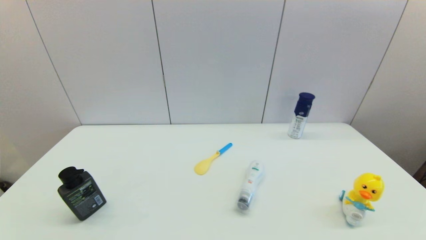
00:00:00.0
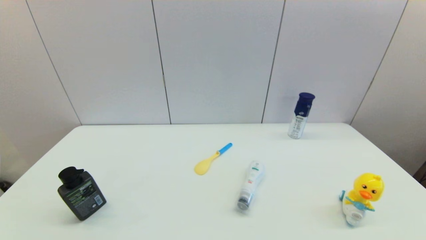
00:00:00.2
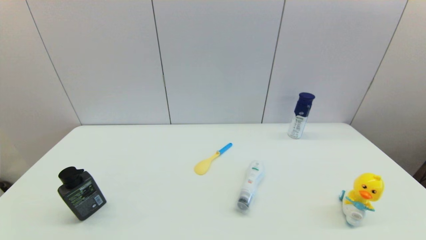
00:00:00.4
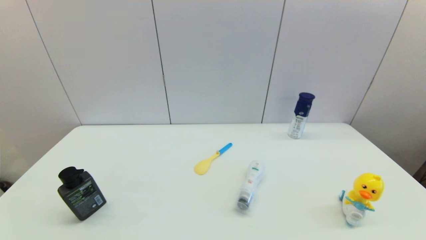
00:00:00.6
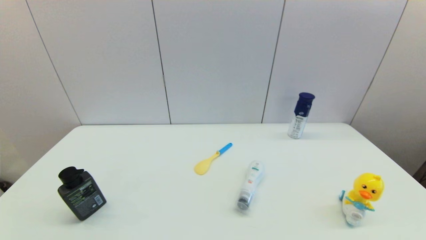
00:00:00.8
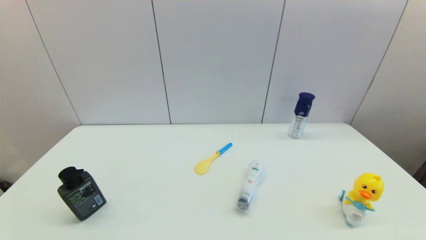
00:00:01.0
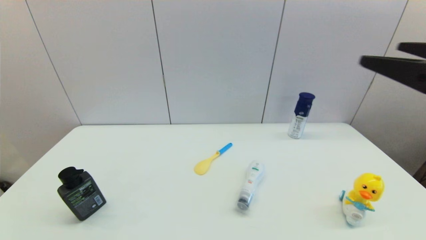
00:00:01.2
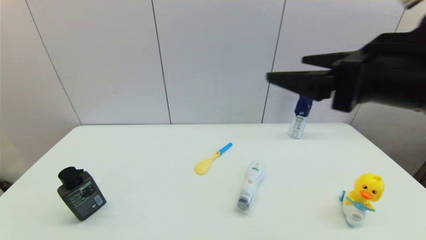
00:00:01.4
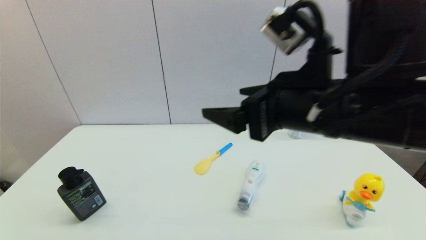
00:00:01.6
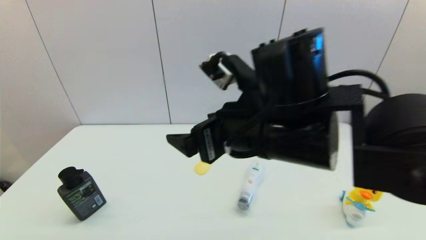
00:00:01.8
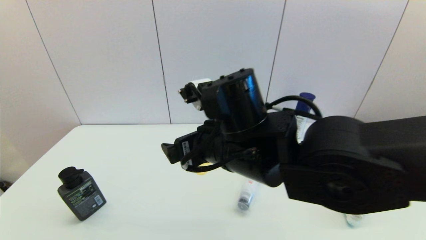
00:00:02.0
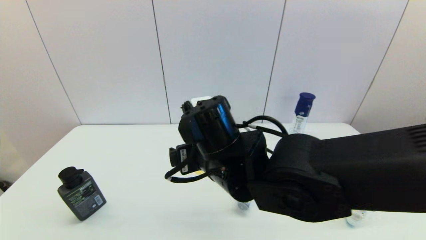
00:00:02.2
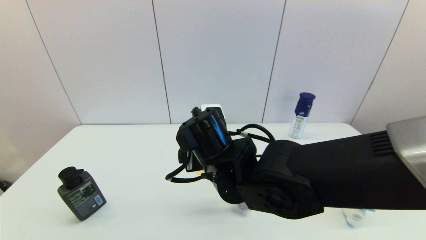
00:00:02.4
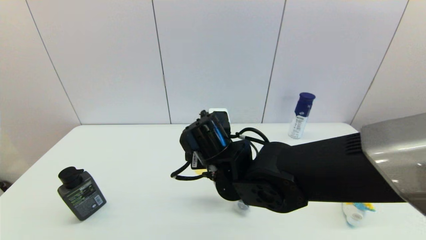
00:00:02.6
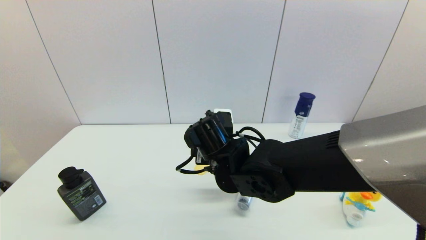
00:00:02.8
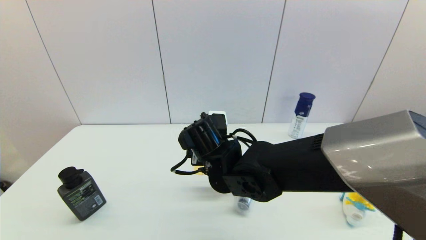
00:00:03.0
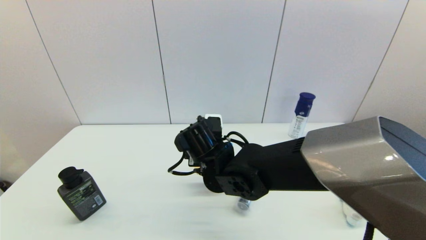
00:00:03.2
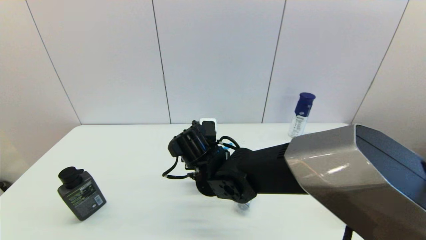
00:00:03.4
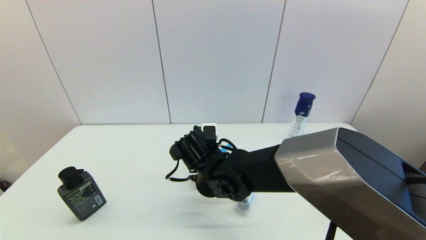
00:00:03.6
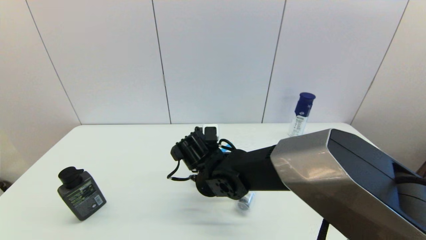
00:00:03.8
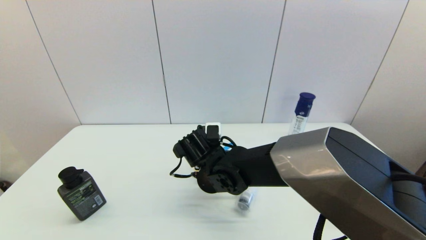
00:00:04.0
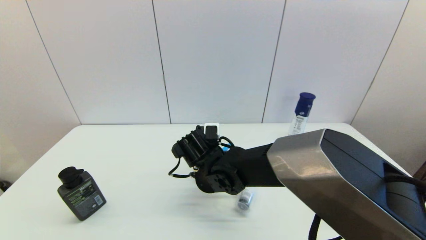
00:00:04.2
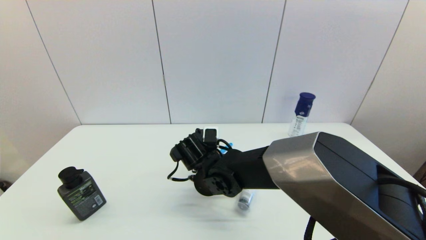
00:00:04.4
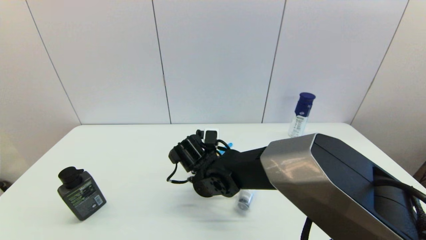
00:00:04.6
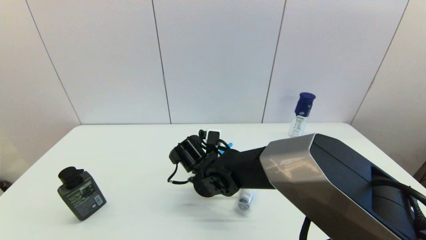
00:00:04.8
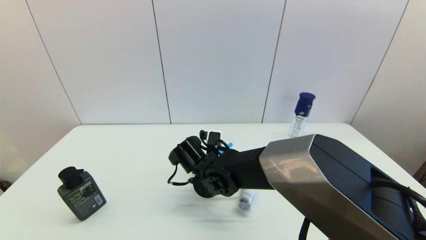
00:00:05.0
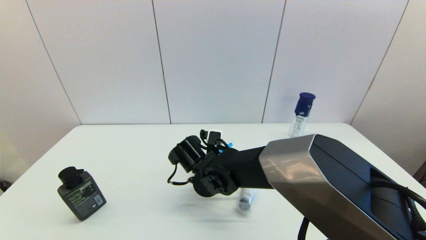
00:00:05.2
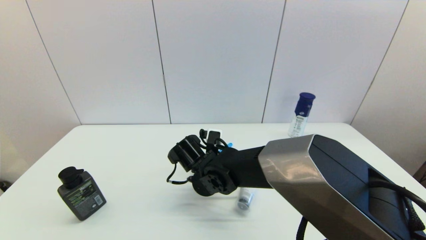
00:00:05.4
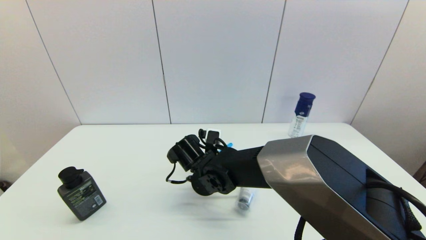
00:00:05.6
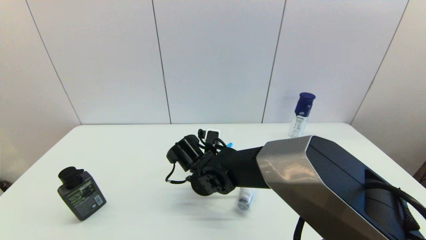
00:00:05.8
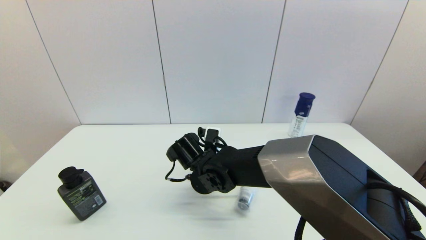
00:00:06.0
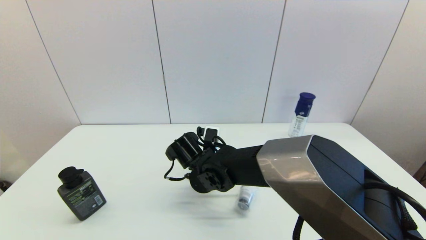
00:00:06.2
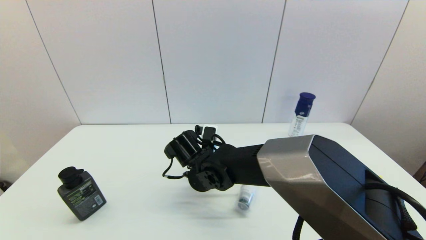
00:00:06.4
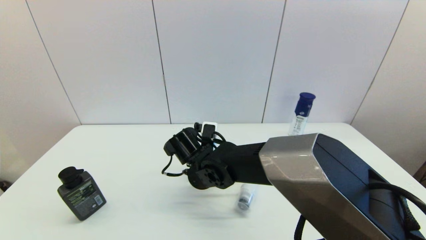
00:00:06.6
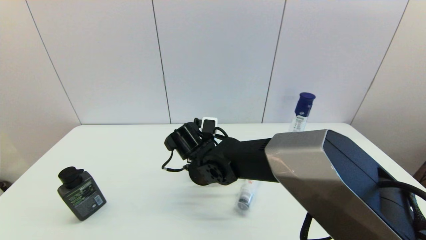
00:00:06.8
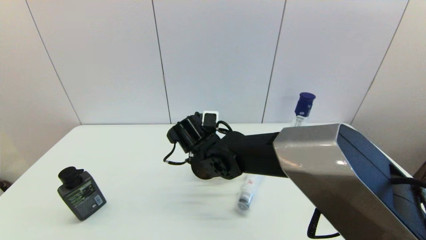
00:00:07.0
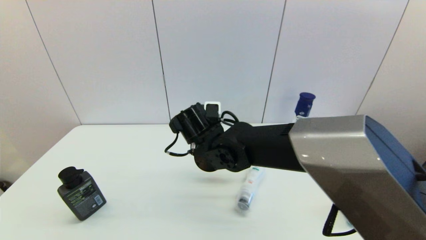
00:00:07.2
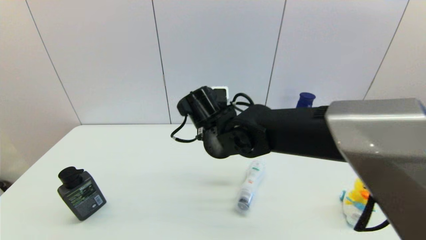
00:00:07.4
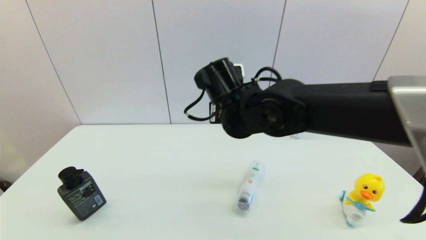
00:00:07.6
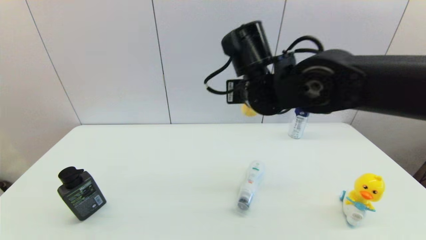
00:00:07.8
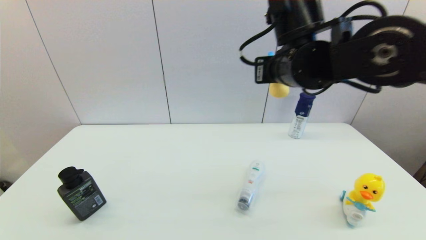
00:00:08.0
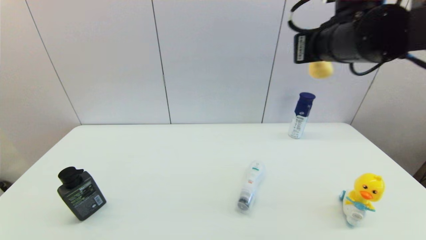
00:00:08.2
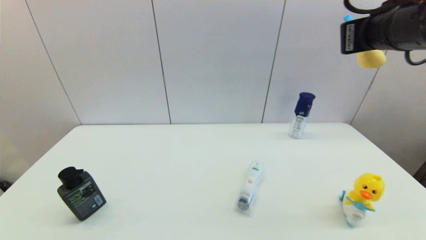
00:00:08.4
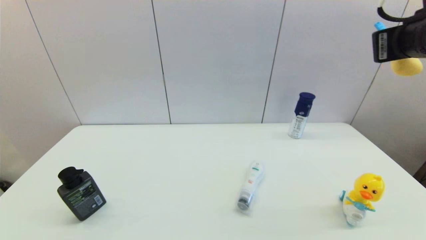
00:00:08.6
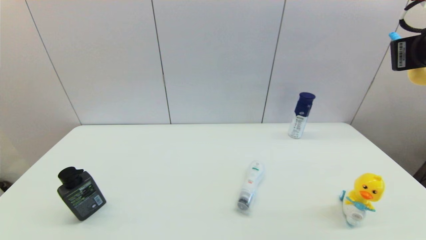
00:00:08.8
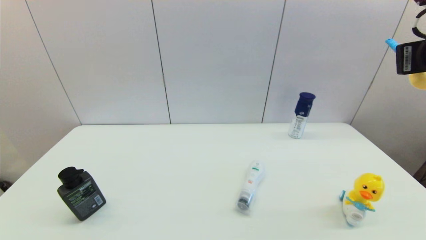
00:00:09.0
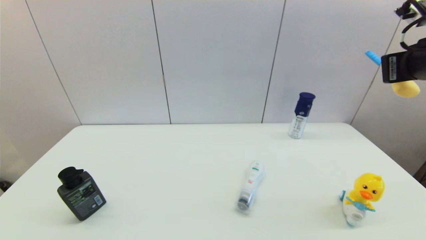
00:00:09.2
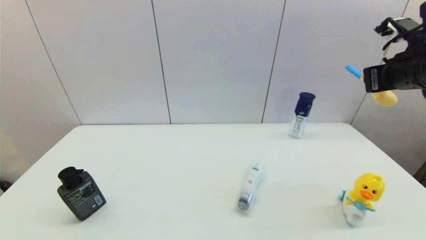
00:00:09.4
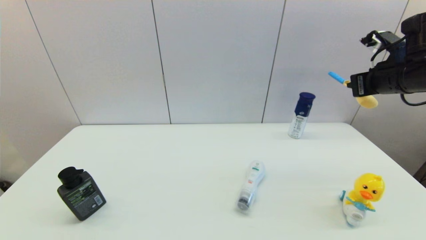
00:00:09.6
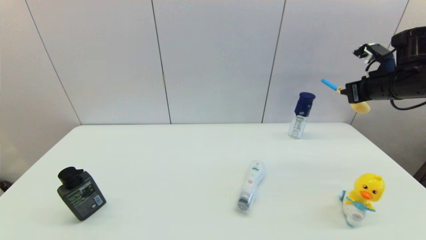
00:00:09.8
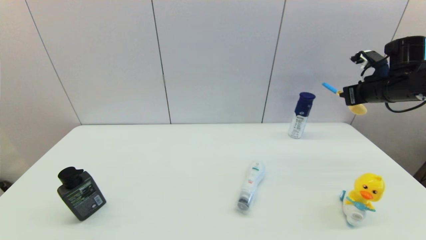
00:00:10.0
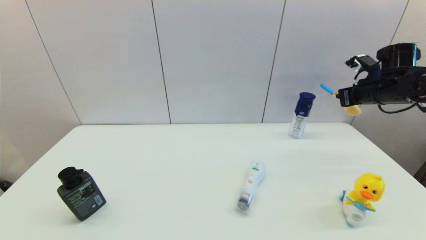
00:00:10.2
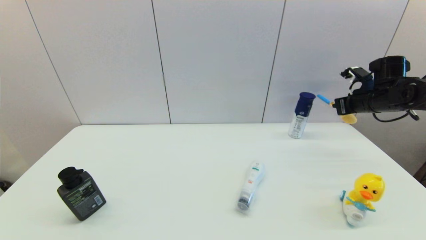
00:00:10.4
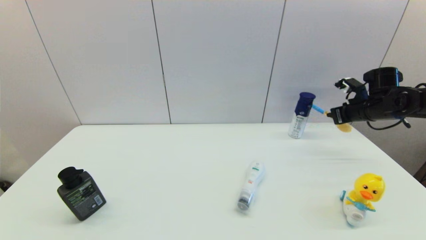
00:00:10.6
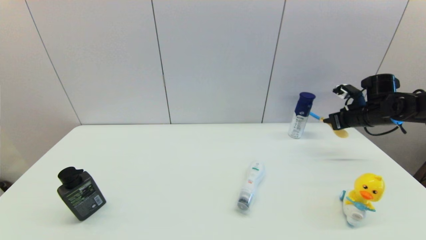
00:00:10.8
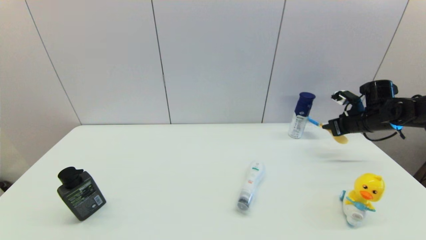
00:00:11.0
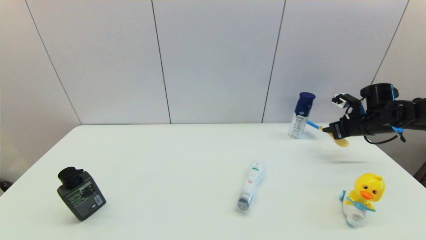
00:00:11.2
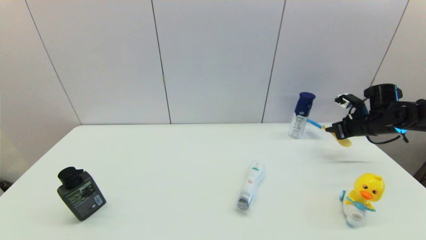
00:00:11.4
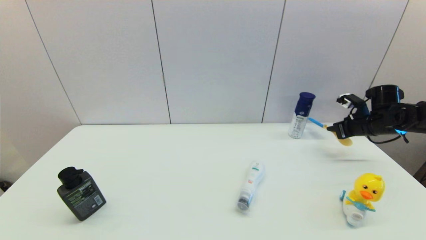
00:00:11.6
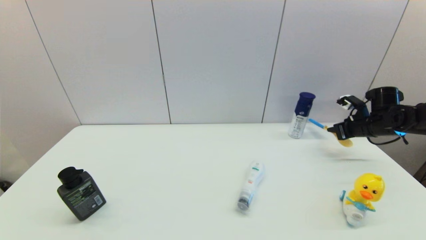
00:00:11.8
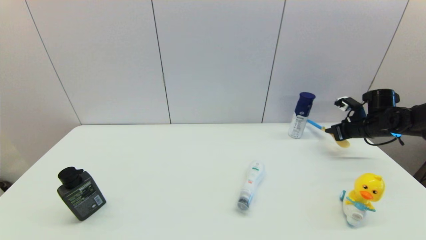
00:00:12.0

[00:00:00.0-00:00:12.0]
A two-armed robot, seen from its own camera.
Step, 00:00:01.0 to 00:00:06.2: Grasp the spoon with right gripper.
00:00:00.0 to 00:00:01.6: The right gripper is displaced to the left, upward and forward by some 40 cm.
00:00:01.6 to 00:00:03.0: The right gripper moves downward, to the left and forward, roughly 20 cm.
00:00:03.0 to 00:00:04.4: The right gripper is displaced downward by approximately 5 cm.
00:00:04.4 to 00:00:06.0: The right gripper closes its fingers.
00:00:06.0 to 00:00:07.6: The right gripper goes roughly 15 cm upward and to the right.
00:00:07.6 to 00:00:09.0: The right gripper goes about 30 cm to the right and upward.
00:00:09.0 to 00:00:10.4: The right gripper moves forward, downward and to the right, roughly 25 cm.
00:00:10.4 to 00:00:12.0: The right gripper travels downward by approximately 10 cm.

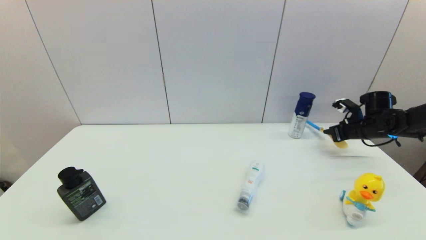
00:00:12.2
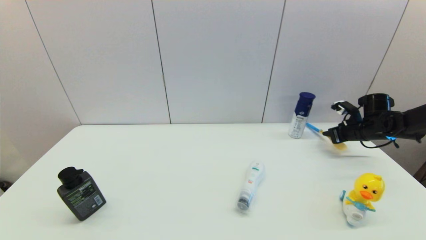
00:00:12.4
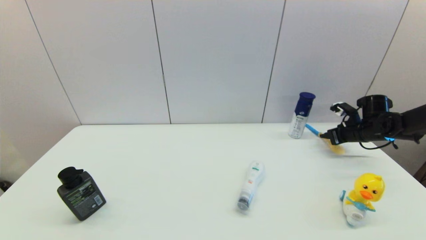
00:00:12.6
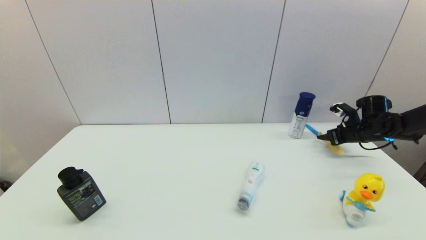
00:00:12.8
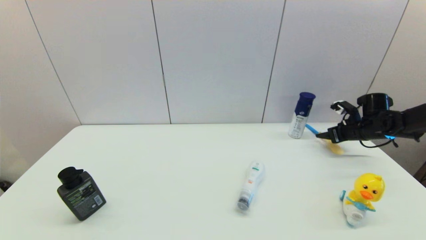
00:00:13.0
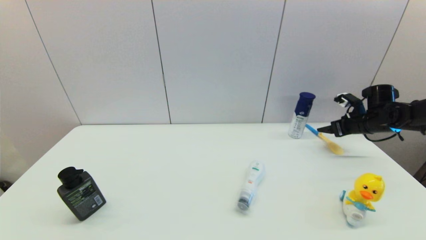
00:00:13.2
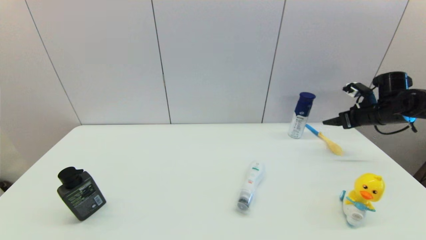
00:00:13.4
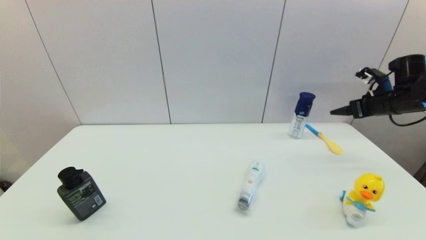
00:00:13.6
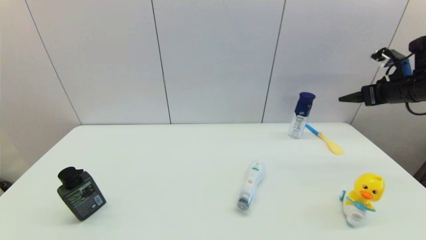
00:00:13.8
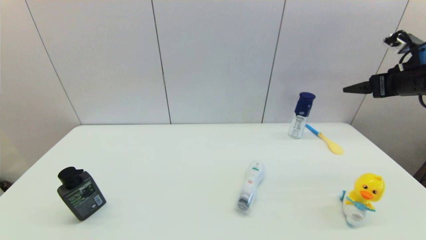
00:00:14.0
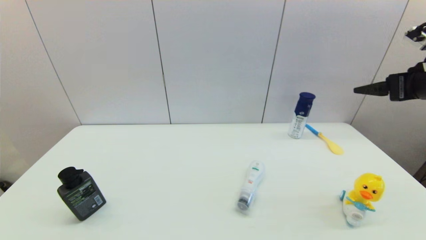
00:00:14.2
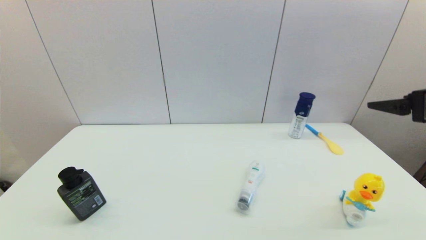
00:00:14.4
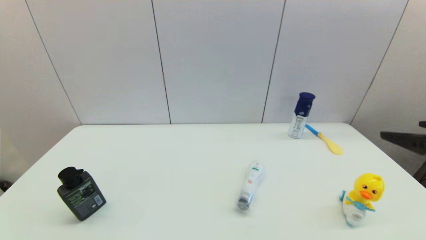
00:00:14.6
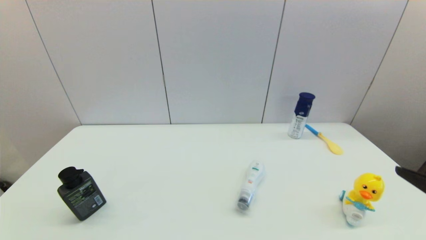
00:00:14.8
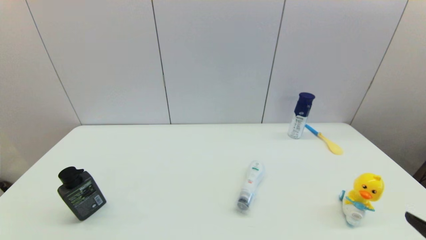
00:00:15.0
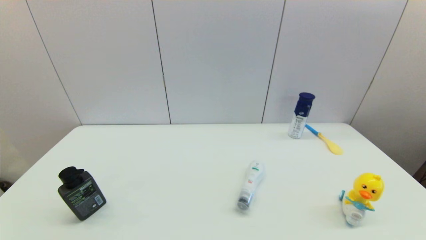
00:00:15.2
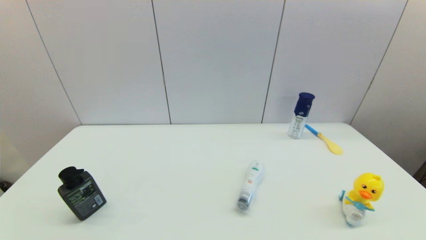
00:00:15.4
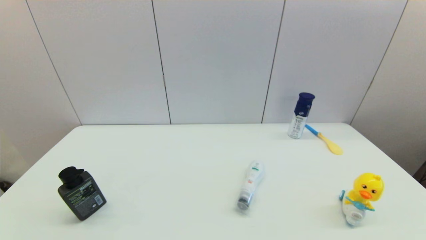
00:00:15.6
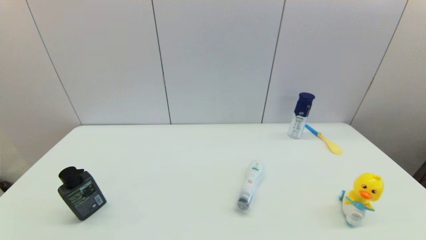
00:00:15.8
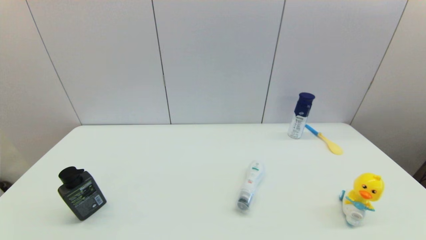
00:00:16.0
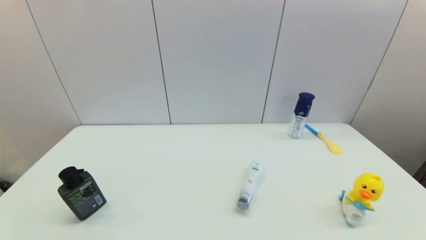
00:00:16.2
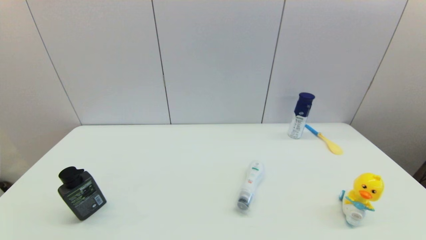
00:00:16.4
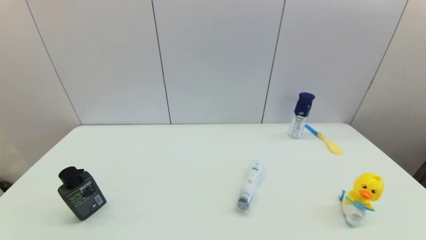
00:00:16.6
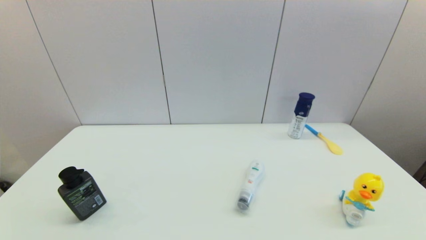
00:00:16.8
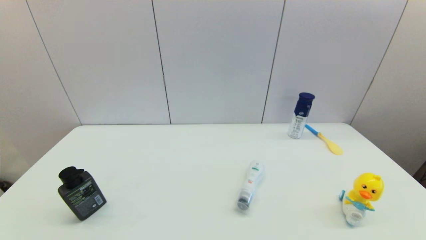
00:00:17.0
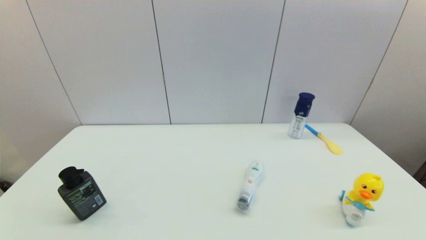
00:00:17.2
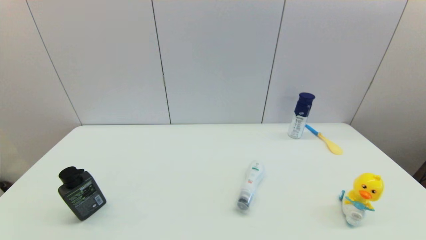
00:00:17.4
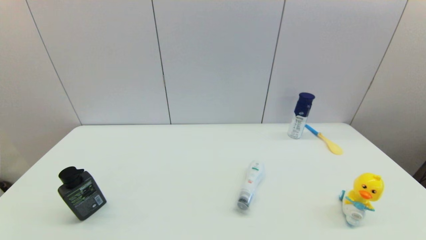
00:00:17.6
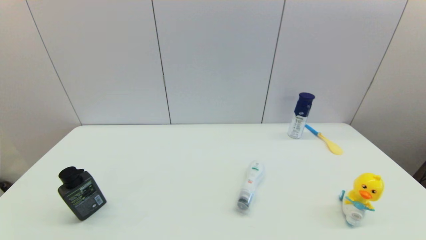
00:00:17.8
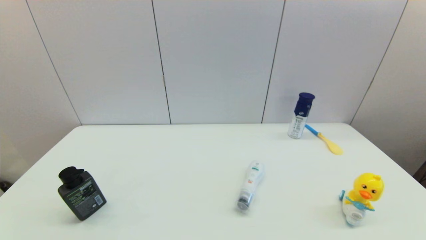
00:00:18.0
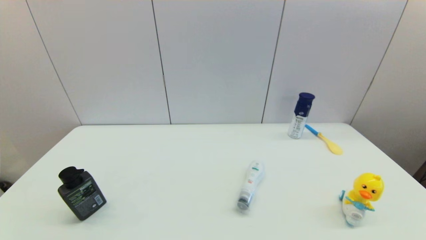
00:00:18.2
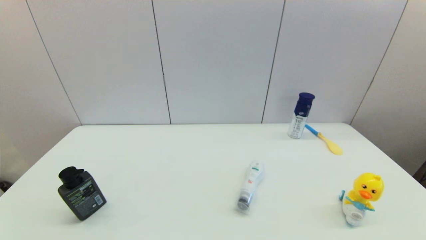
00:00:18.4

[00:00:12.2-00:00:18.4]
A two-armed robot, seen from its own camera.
00:00:12.2 to 00:00:13.8: The right gripper is displaced upward and backward by some 15 cm, and opens up.
00:00:13.8 to 00:00:15.4: The right gripper goes approximately 40 cm backward and downward.
00:00:16.8 to 00:00:18.4: Both grippers stay put.
